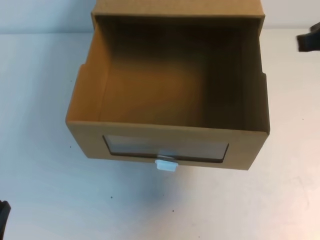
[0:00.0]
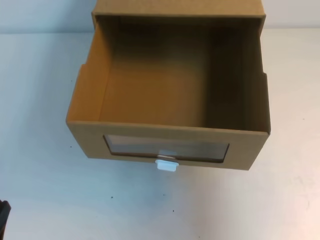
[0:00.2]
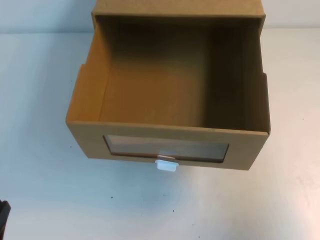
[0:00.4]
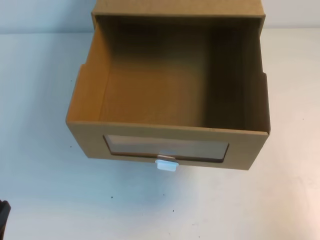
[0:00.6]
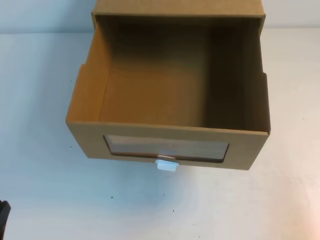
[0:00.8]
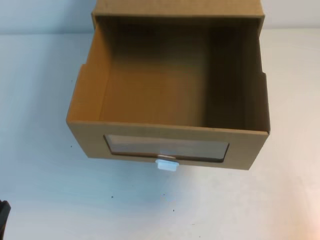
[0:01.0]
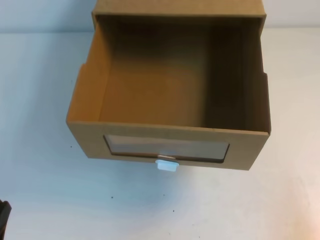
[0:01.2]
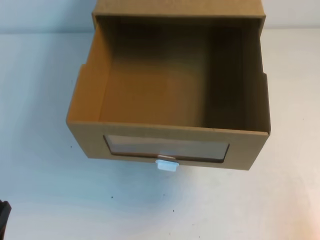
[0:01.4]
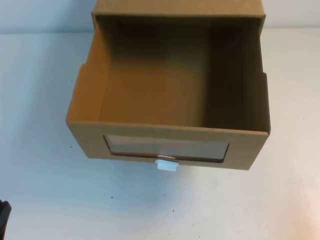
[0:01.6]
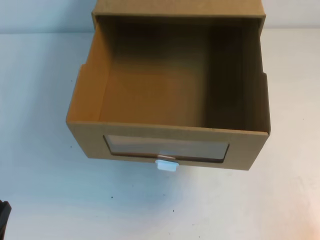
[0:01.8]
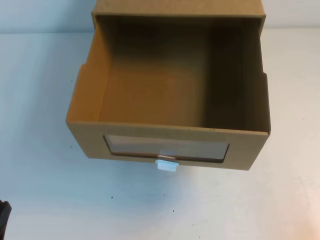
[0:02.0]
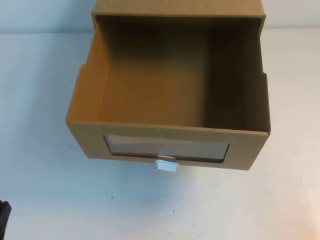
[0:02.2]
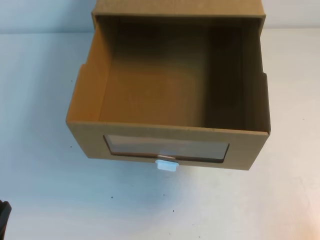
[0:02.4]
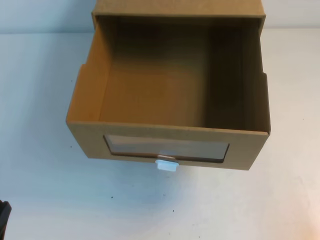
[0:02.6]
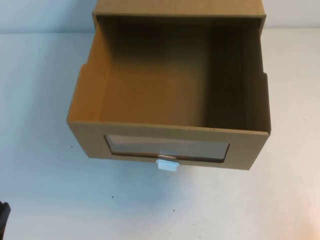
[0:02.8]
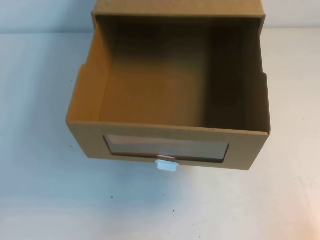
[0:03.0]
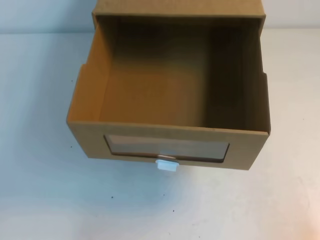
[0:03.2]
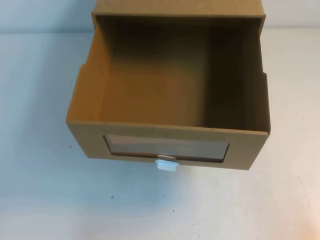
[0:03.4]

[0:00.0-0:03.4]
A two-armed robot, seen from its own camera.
Task of the whole recording: open the shoebox on the table.
Step, 0:00.0 to 0:03.4: Open the shoe box.
0:00.0 to 0:01.6: The right gripper goes some 30 cm downward and backward.

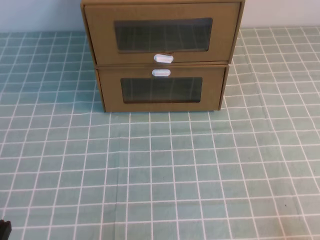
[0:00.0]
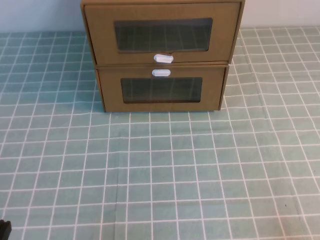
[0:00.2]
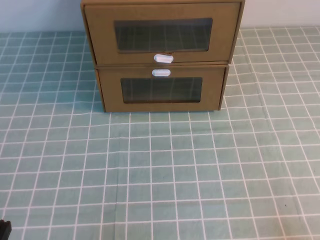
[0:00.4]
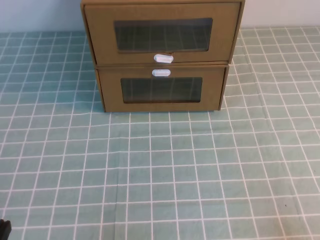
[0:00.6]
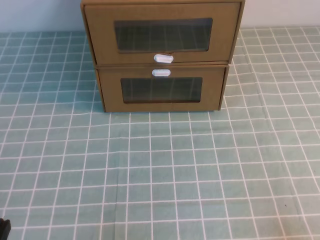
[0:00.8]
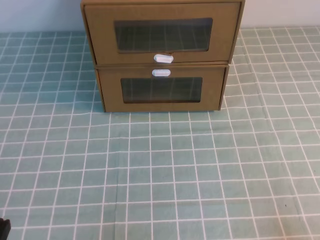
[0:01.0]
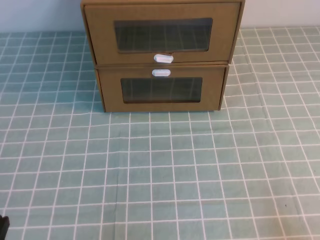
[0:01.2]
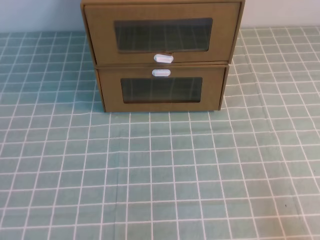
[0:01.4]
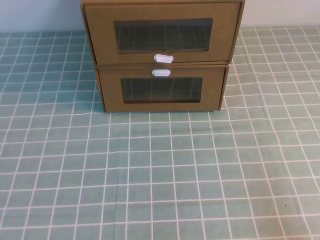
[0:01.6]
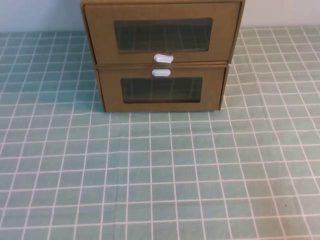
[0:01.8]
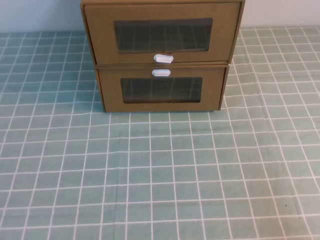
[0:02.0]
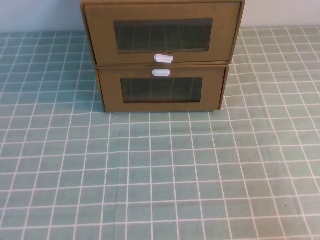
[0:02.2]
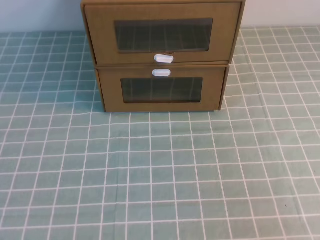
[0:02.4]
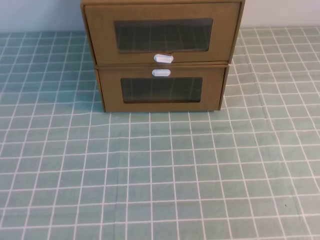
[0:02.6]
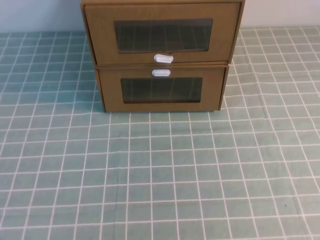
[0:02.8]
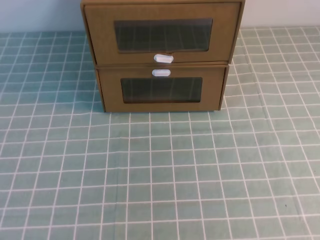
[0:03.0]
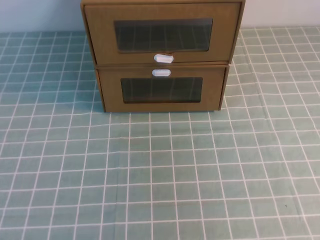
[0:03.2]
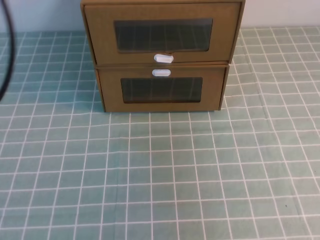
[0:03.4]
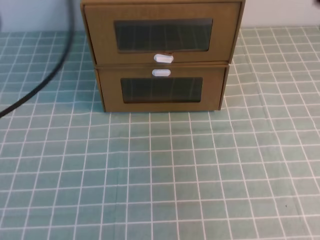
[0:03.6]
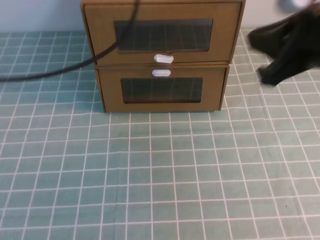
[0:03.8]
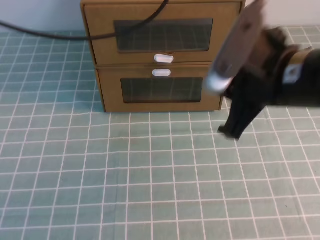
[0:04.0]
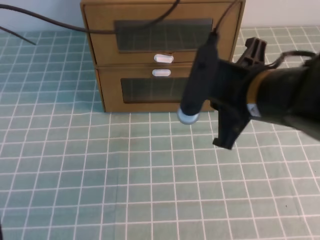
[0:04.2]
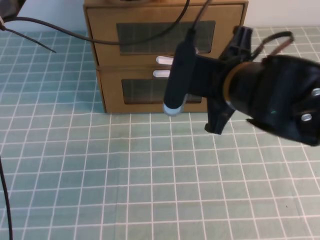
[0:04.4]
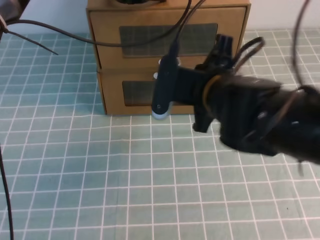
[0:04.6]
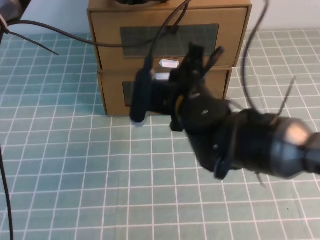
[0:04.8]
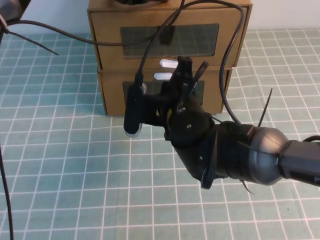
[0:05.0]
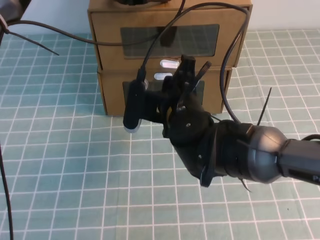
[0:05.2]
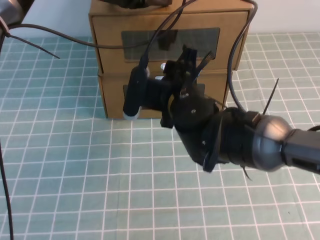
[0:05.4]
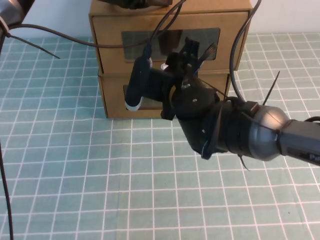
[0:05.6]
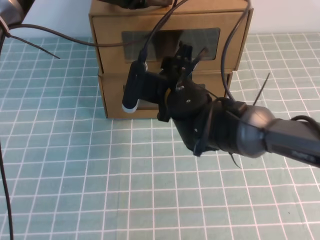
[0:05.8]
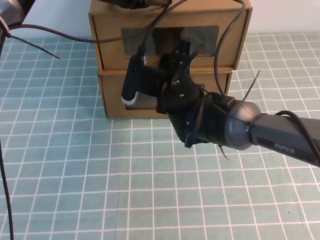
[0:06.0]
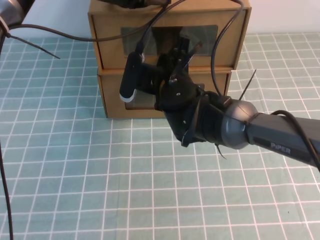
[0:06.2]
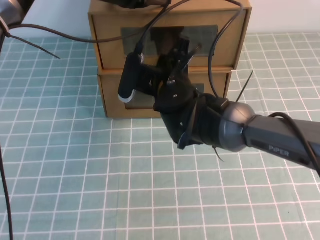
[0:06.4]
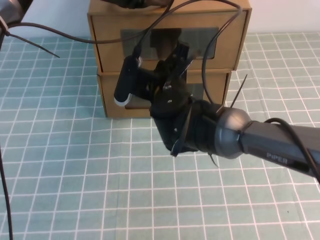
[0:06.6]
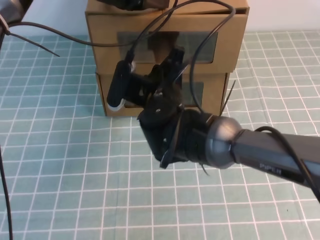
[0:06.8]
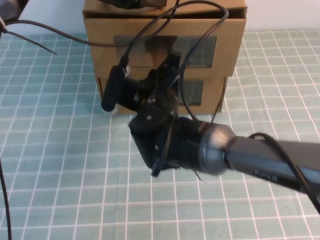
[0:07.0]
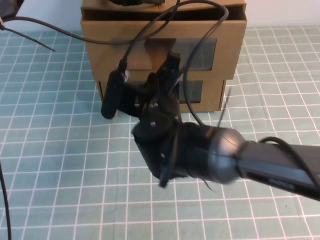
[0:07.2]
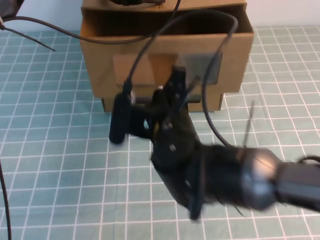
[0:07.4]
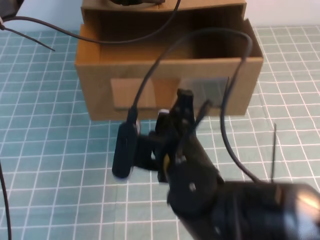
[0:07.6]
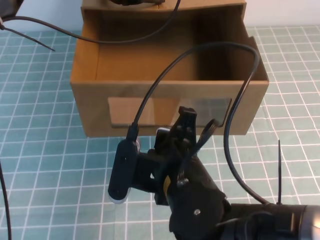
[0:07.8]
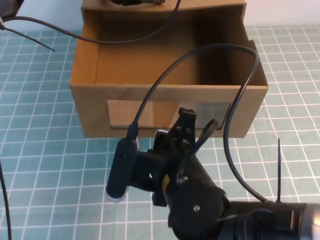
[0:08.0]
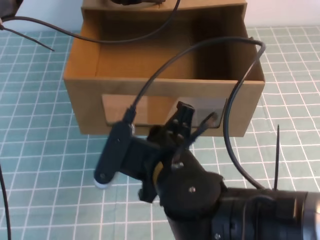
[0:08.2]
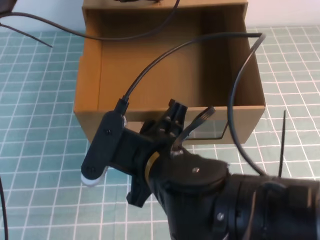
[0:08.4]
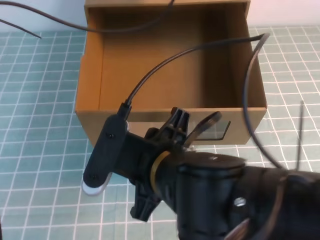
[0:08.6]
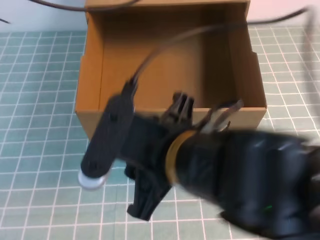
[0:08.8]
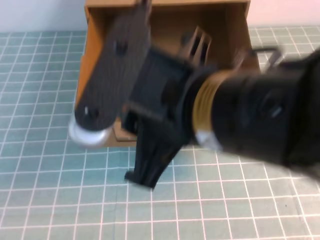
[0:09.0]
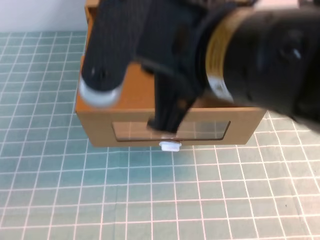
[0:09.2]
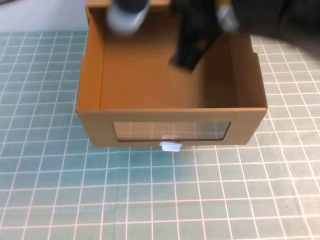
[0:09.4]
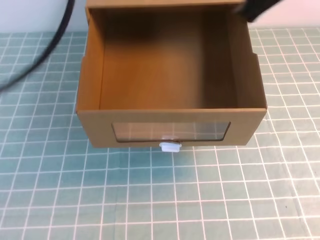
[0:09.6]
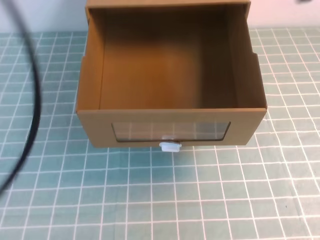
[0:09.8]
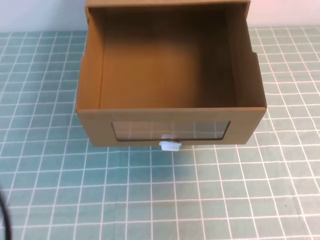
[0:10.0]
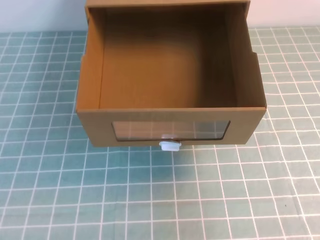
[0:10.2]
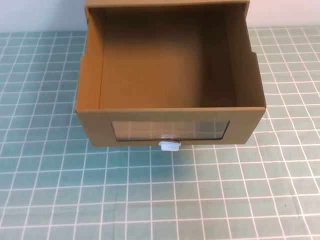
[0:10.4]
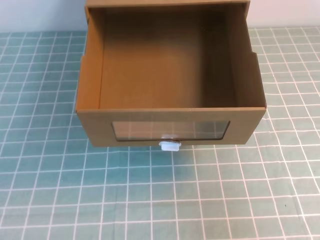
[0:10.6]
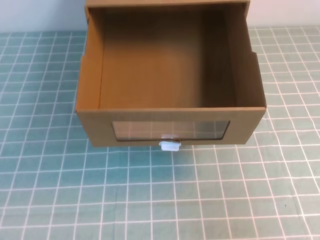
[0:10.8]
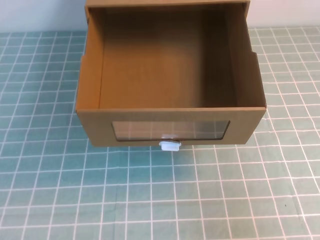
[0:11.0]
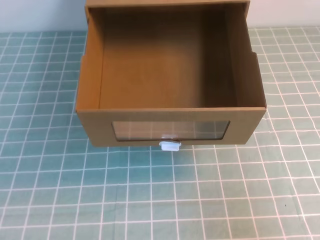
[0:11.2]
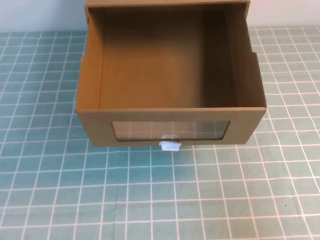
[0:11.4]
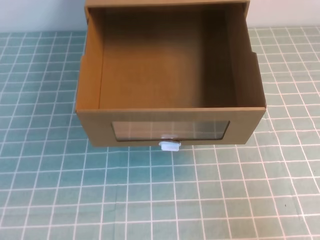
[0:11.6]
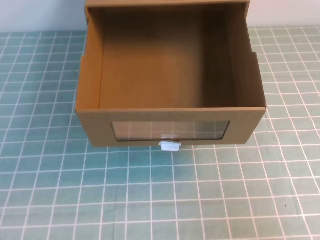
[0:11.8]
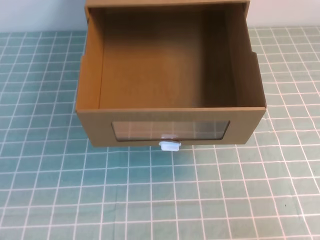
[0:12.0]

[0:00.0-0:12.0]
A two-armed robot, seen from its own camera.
Task of the whole recording: open the shoebox on the cyan tablecloth.
0:03.0 to 0:04.4: The left gripper goes about 40 cm forward and to the right. Meanwhile the right gripper is displaced to the left, forward and downward by roughly 35 cm.
0:04.4 to 0:06.0: The right gripper shifts approximately 15 cm forward, to the left and downward, and opens up.
0:06.0 to 0:07.6: The right gripper heads backward, covering approximately 15 cm, and closes its fingers.
0:07.6 to 0:09.0: The grippers both shift upward and backward by some 15 cm. The right gripper opens.
0:09.0 to 0:10.4: The left gripper shifts some 35 cm backward, downward and to the left, while the right gripper heads to the right, covering some 25 cm, and closes up.

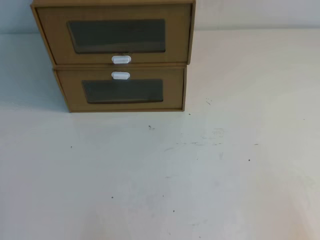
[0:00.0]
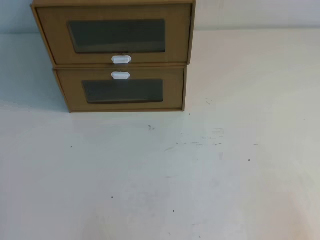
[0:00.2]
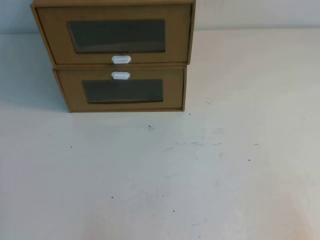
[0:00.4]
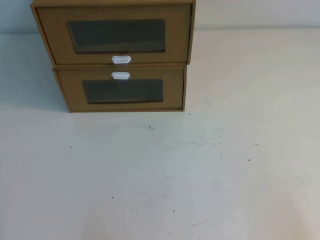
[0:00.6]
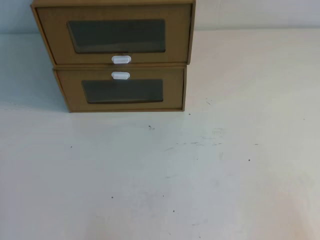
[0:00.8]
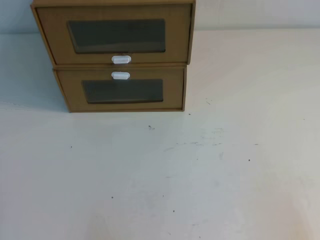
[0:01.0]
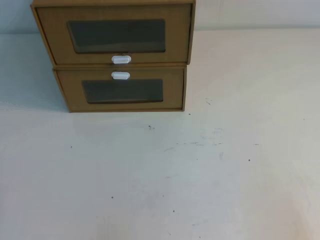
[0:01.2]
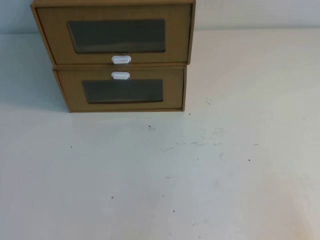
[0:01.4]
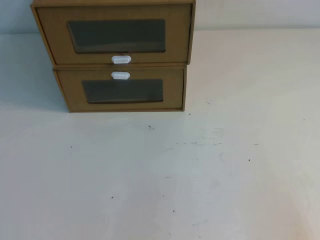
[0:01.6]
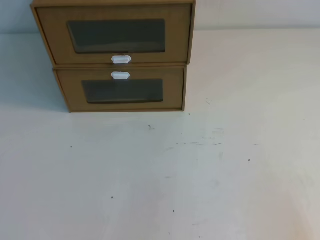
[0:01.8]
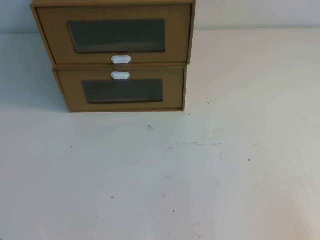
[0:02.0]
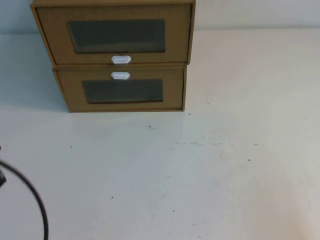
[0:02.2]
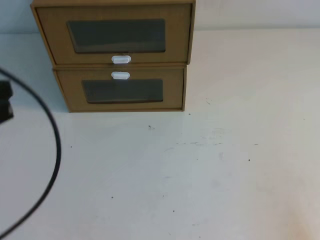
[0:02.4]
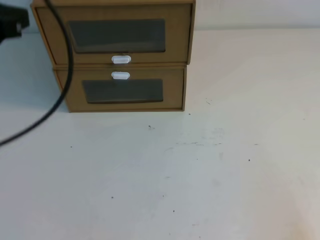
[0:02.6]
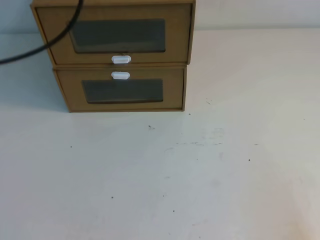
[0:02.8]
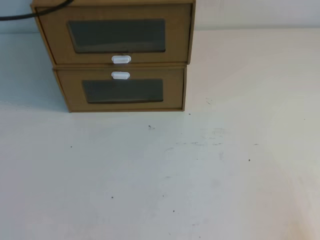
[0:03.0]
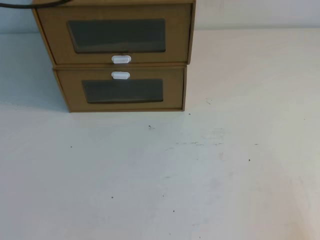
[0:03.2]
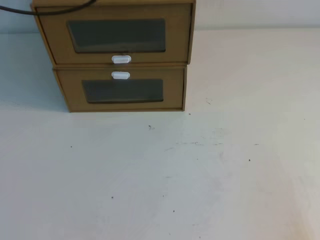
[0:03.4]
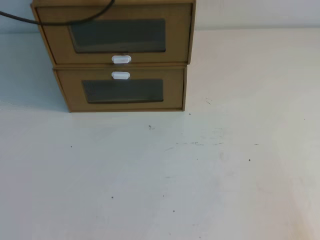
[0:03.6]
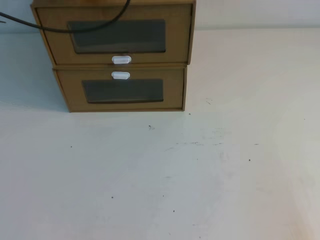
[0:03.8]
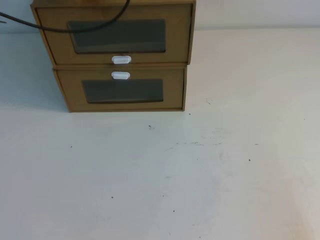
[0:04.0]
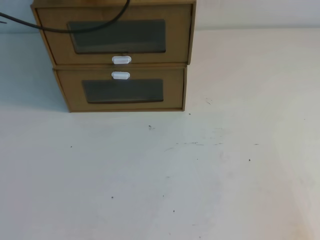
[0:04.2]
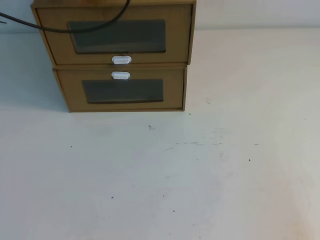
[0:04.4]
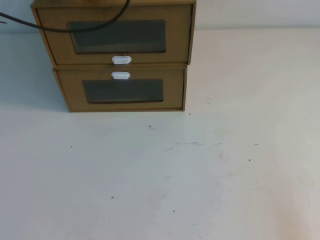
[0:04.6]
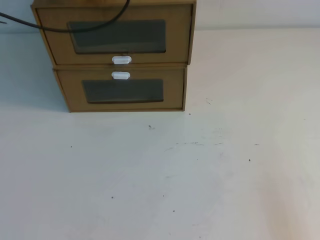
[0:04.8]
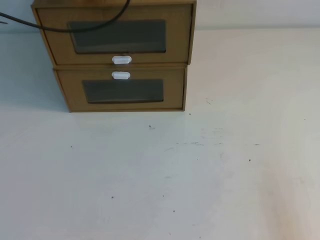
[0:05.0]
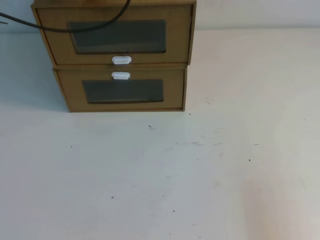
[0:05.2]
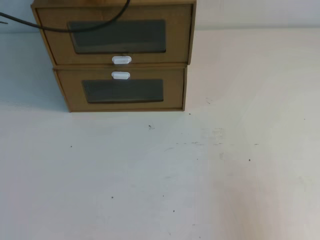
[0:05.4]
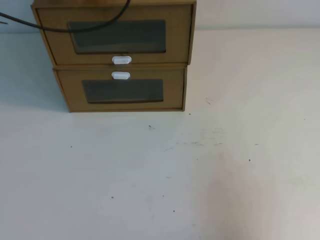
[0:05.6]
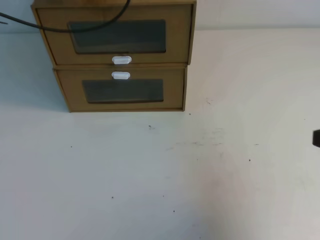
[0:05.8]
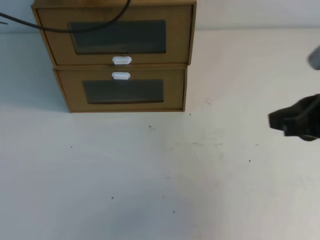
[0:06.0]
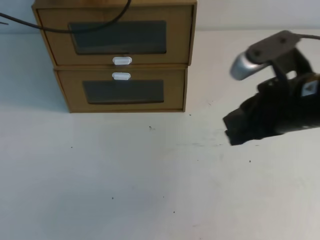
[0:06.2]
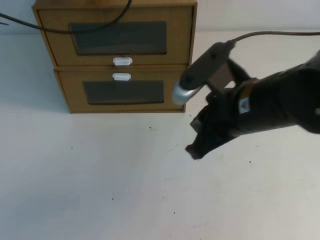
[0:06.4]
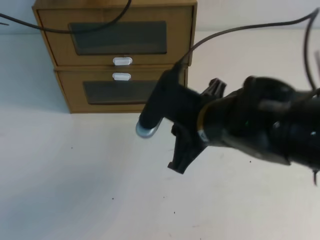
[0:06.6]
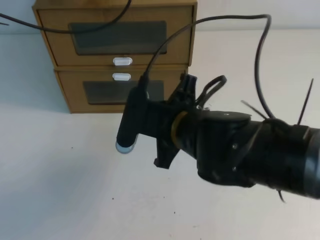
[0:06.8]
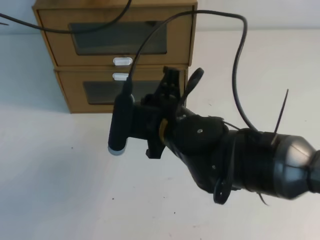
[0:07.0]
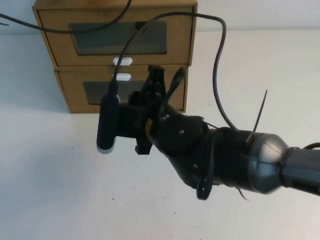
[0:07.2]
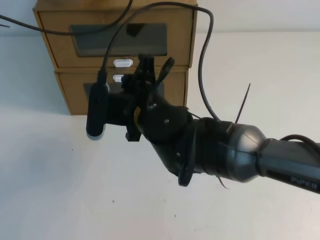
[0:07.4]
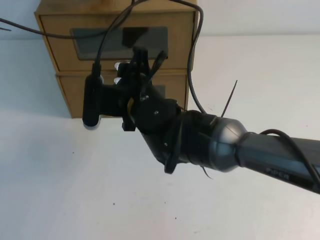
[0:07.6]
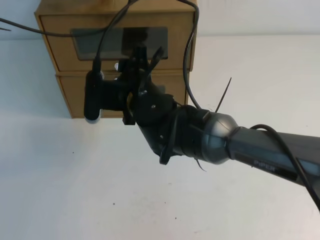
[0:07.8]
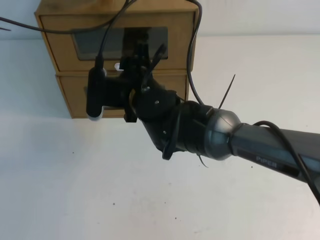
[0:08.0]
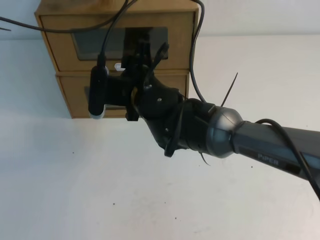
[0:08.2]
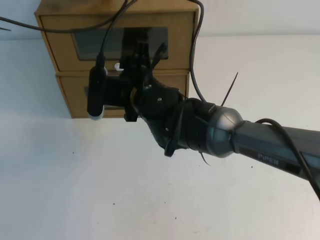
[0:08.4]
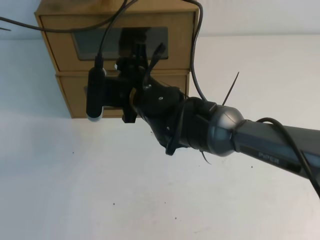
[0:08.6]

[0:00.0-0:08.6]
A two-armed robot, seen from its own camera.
Task of the whole recording: open the shoebox on the table.
0:01.4 to 0:02.8: The left gripper shifts approximately 35 cm upward and forward.
0:02.8 to 0:04.4: The left gripper is displaced forward by some 20 cm.
0:04.4 to 0:05.8: The right gripper is displaced upward and forward by about 15 cm.
0:05.8 to 0:07.2: The right gripper travels to the left and forward by about 30 cm.
0:07.2 to 0:08.6: The right gripper heads forward, covering about 10 cm, and opens.
